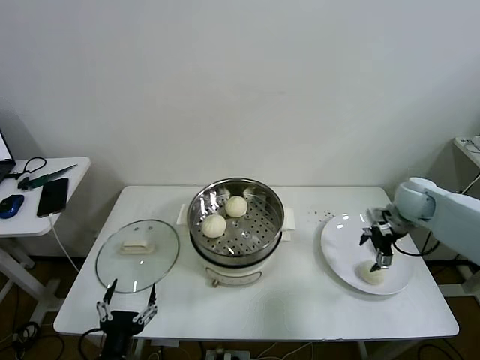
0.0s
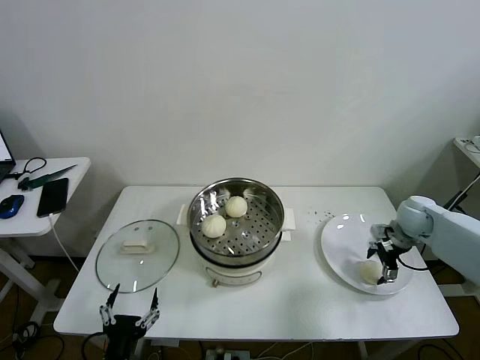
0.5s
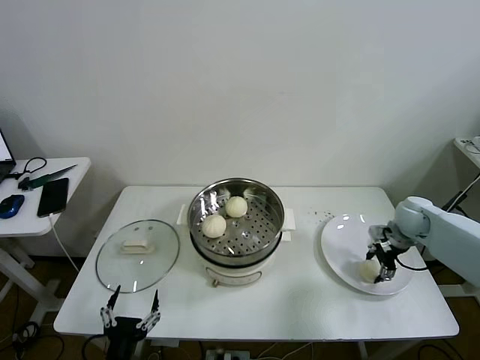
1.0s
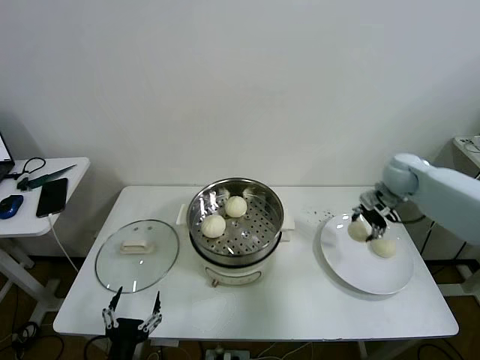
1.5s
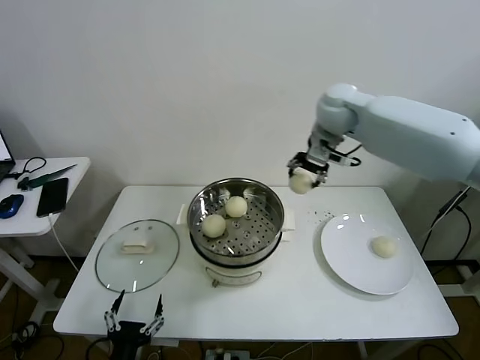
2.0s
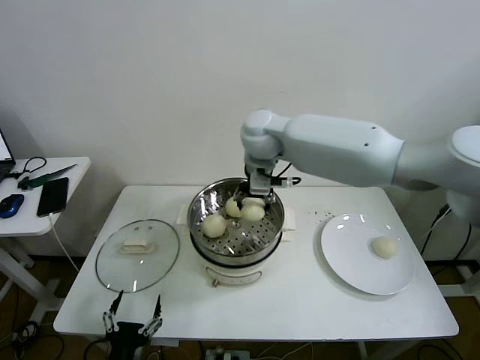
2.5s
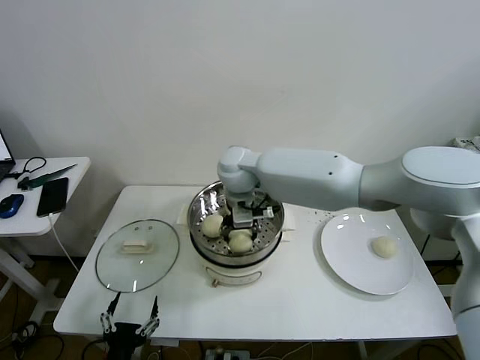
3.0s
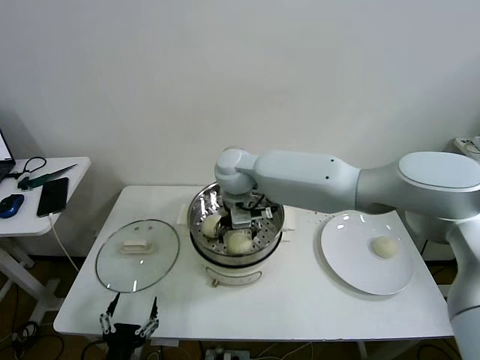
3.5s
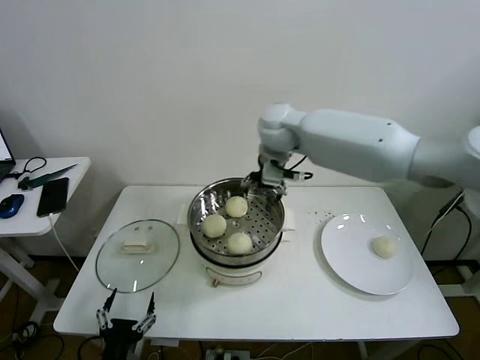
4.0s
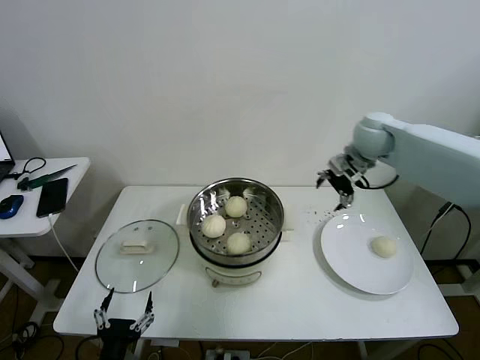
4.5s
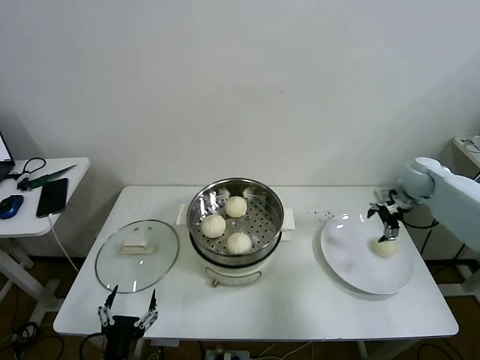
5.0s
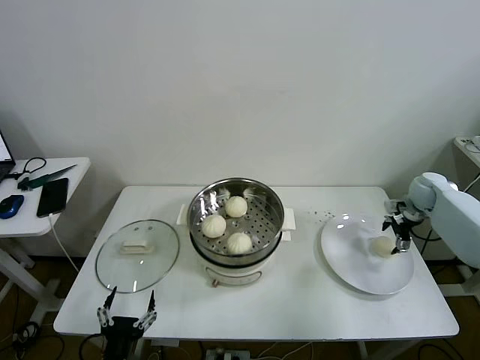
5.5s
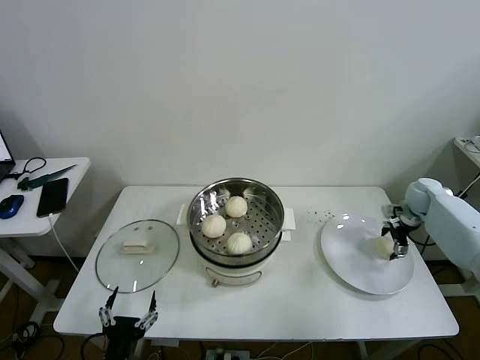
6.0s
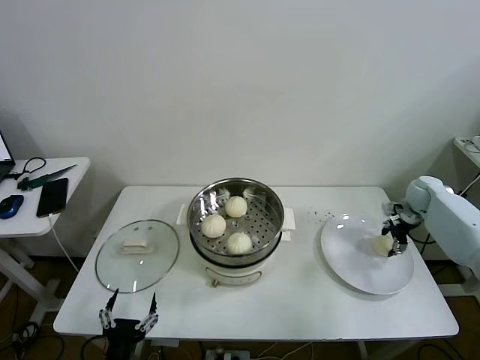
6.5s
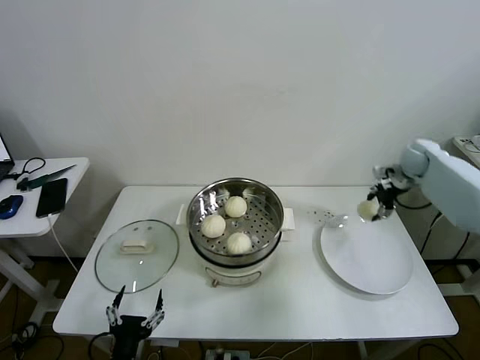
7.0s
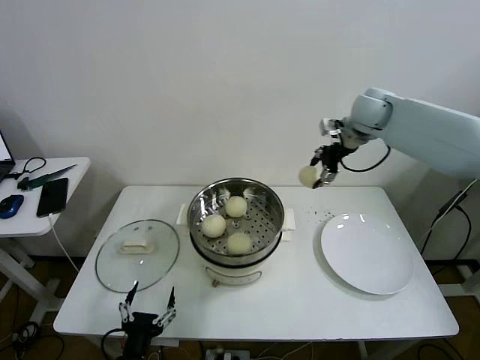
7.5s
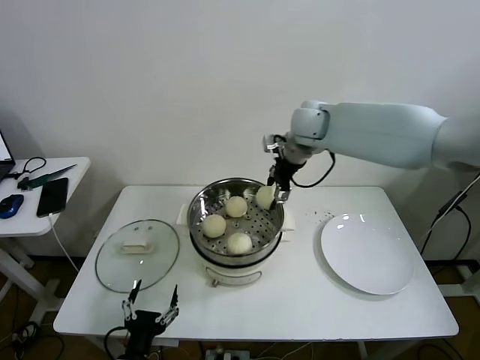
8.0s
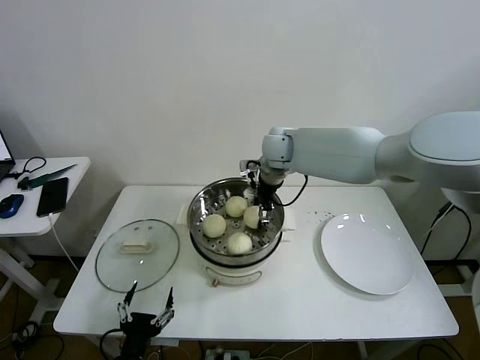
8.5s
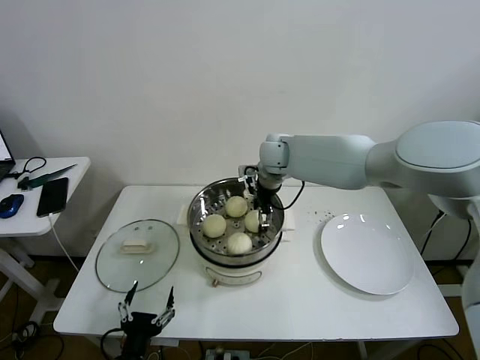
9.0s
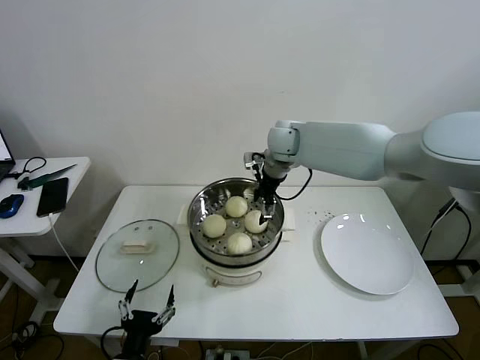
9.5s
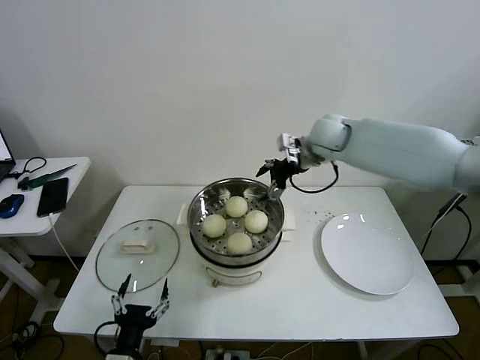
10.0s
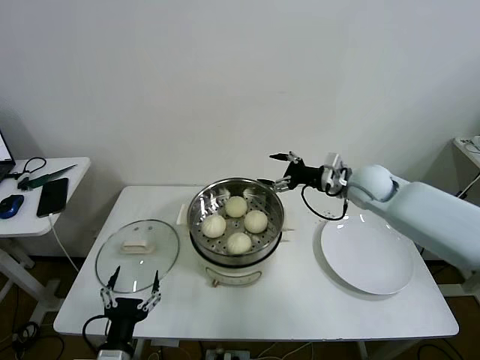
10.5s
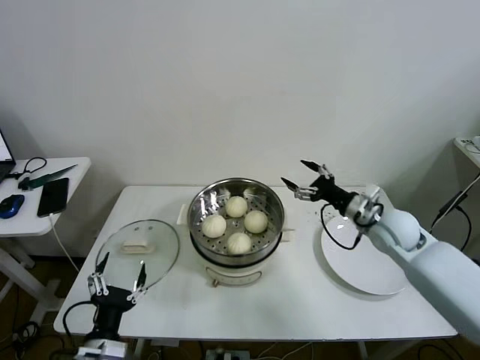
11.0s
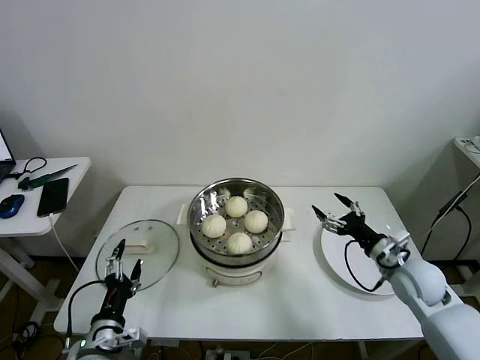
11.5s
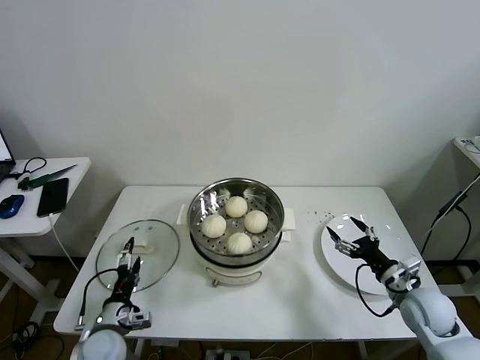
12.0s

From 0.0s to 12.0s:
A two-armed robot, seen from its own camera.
Task of the whole recording: take steamed baozi put them in steamer then cover it.
Step, from 1.0s to 3.5s: Place the baozi on the steamer with right gripper.
Step, from 4.0s to 6.0s: Grasp the baozi in the plate with right gripper.
Step, from 7.0s to 9.0s: Place the baozi on the steamer with right gripper.
From 0.0s to 2.0s: The right gripper goes approximately 30 cm to the left and upward, and closes its fingers.
From 2.0s to 4.0s: The right gripper heads to the left, covering some 10 cm, and opens.
From 4.0s to 6.0s: The right gripper shifts roughly 50 cm to the right and downward.
From 6.0s to 8.0s: The right gripper travels to the left and upward by about 40 cm, and closes its fingers.
From 8.0s to 10.0s: The right gripper opens its fingers.
From 10.0s to 12.0s: The right gripper goes roughly 40 cm backward, downward and to the right; the left gripper moves forward and to the left, some 15 cm.

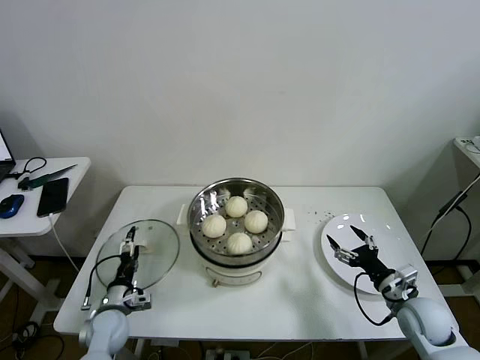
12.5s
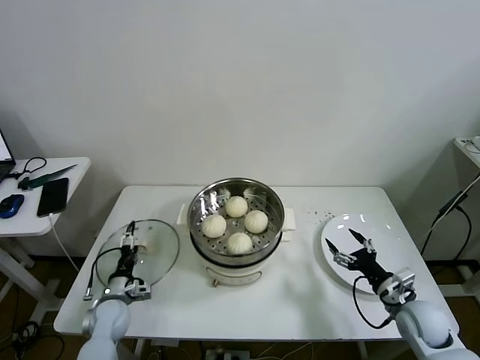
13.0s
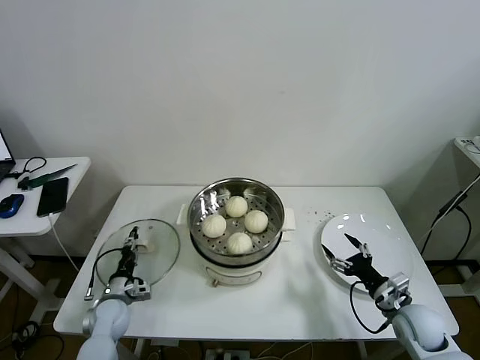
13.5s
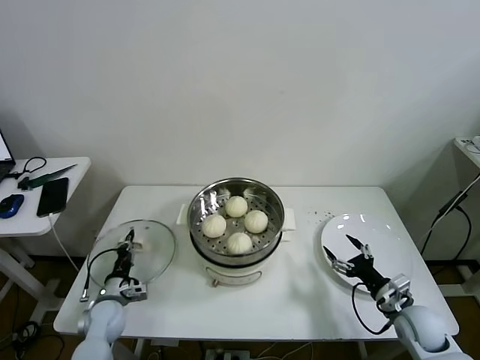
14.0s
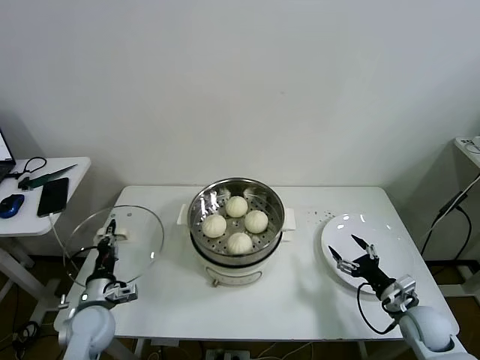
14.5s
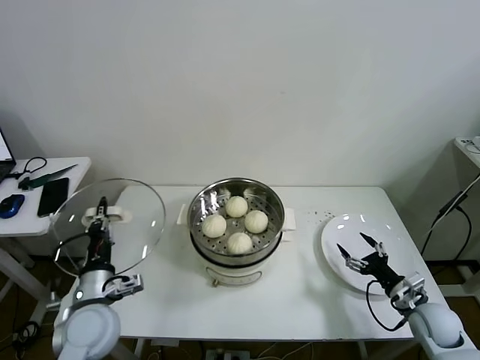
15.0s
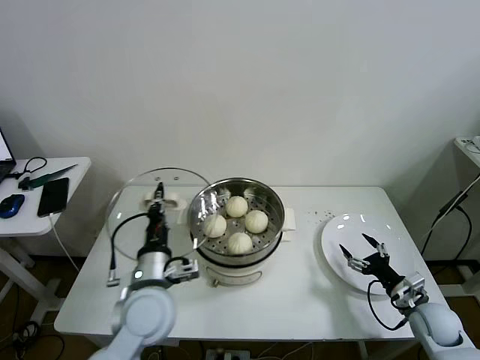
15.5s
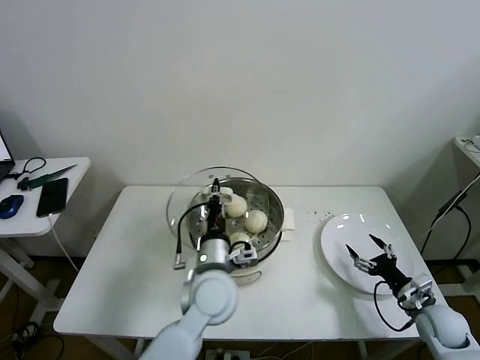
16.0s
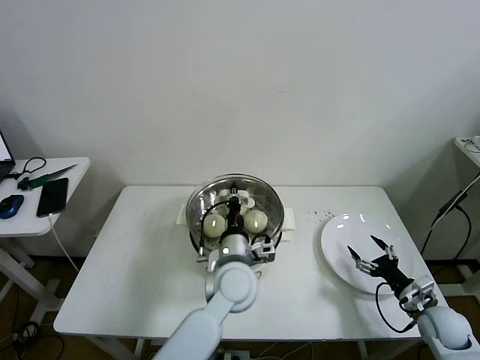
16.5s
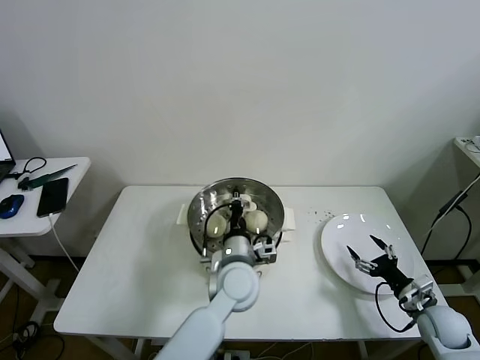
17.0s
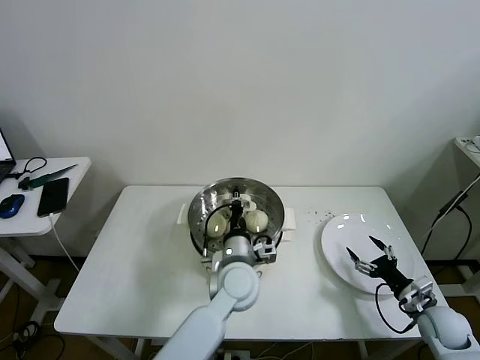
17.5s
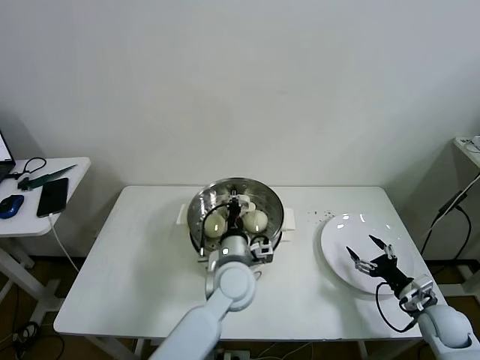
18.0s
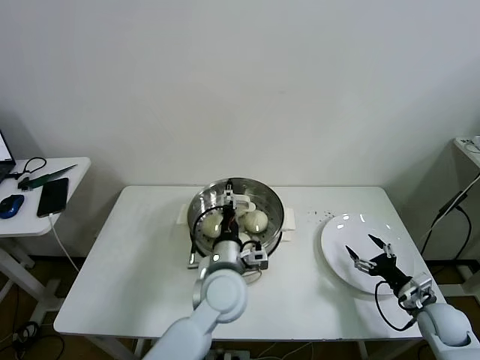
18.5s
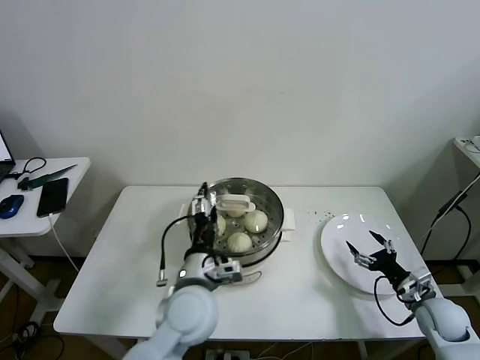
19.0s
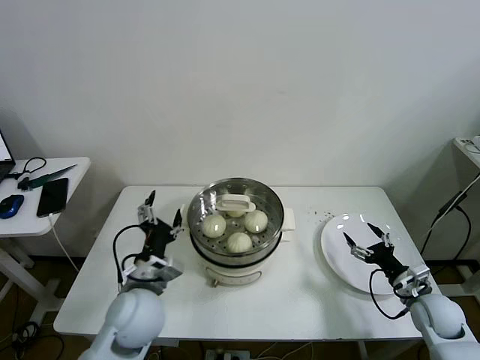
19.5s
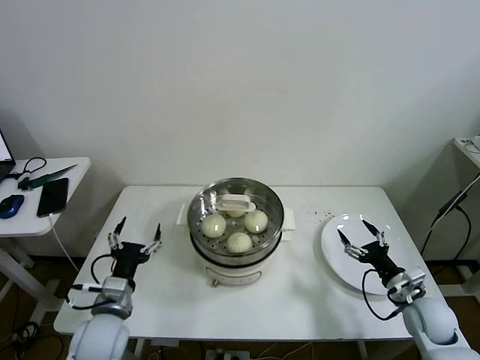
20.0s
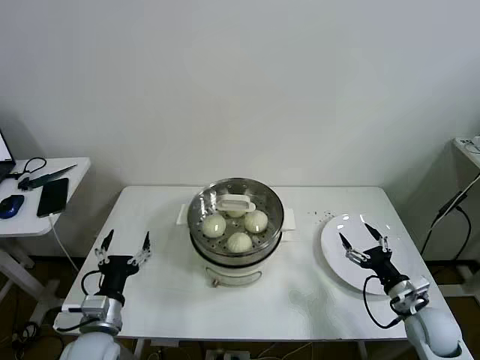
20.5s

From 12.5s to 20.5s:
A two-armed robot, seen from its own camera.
Task of the whole recording: take steamed baozi put them in steamer then cover it.
Step, from 14.0s to 18.0s: Place the pot lid on the steamer with left gripper.
From 12.5s to 14.5s: The left gripper shifts by about 5 cm, and closes its fingers.
From 14.5s to 16.5s: The right gripper moves to the right, approximately 5 cm. The left gripper is displaced to the right by some 30 cm.
From 16.5s to 18.5s: The left gripper opens up.
From 18.5s to 20.5s: The left gripper moves to the left and backward, about 25 cm; the right gripper is displaced to the left by about 5 cm.
